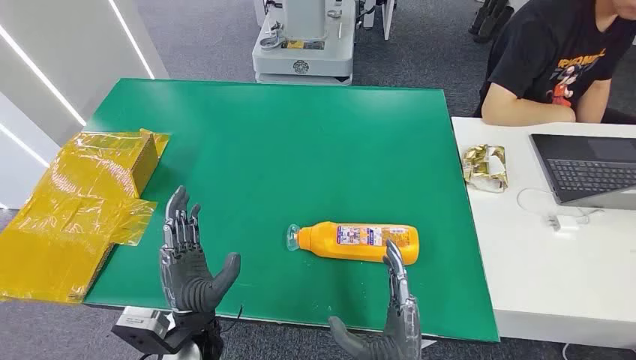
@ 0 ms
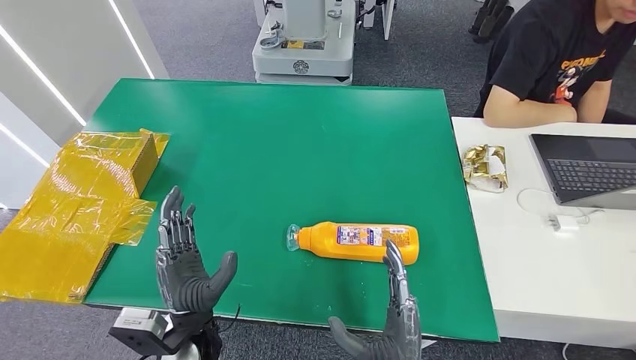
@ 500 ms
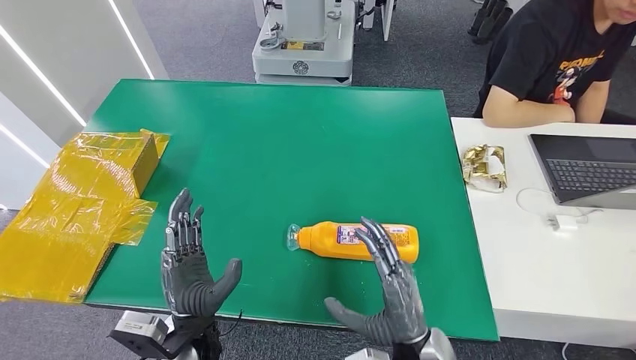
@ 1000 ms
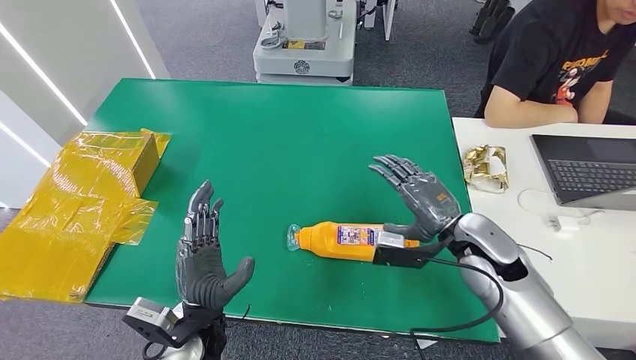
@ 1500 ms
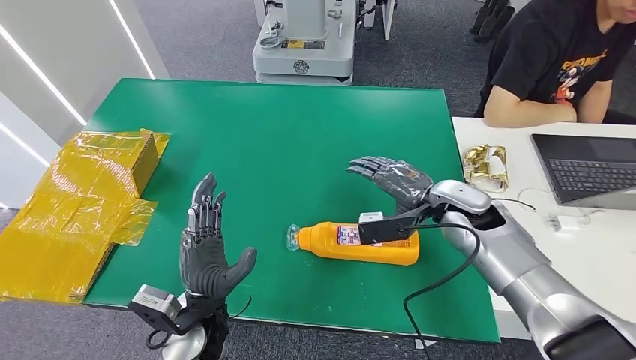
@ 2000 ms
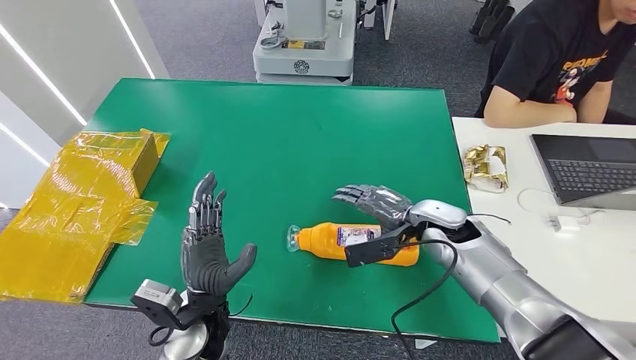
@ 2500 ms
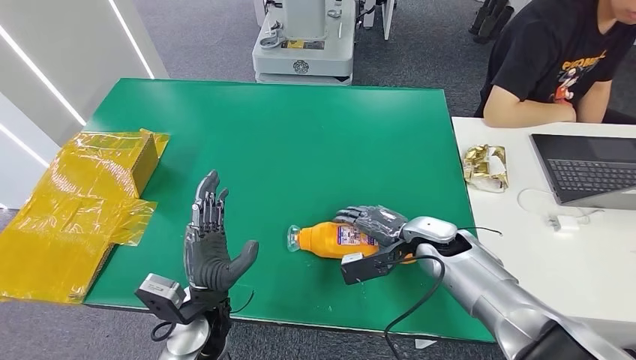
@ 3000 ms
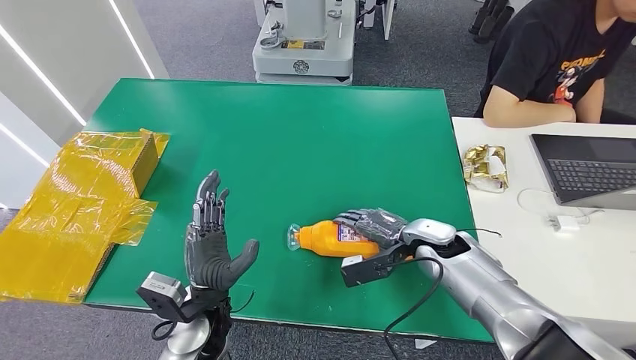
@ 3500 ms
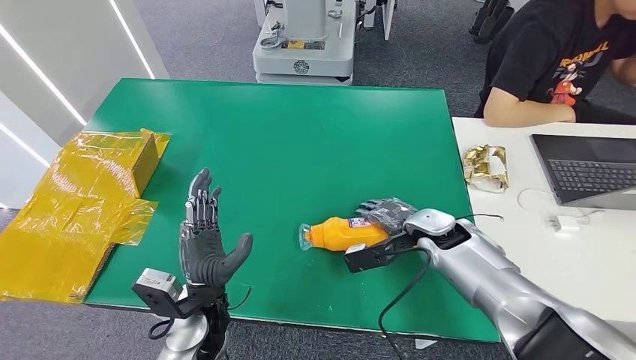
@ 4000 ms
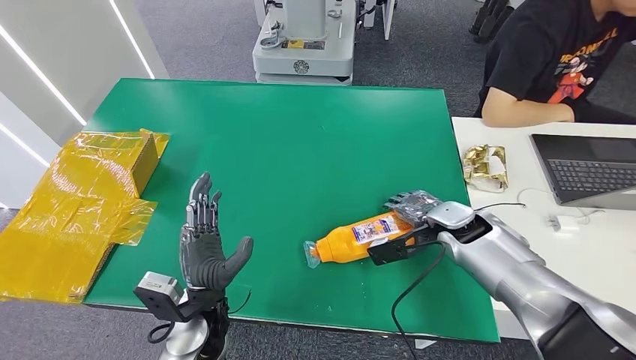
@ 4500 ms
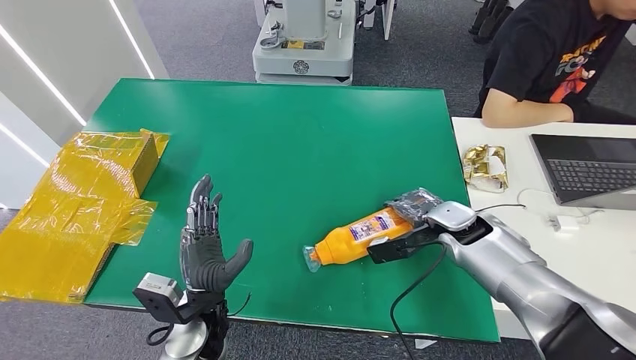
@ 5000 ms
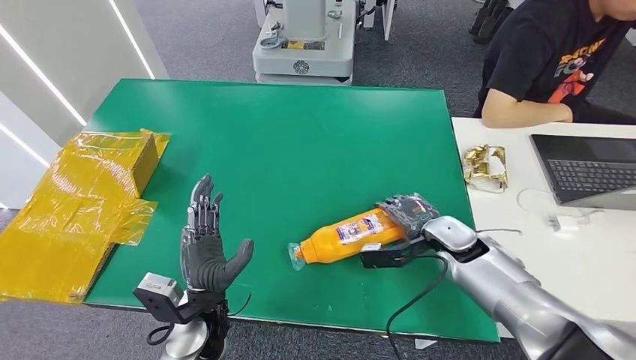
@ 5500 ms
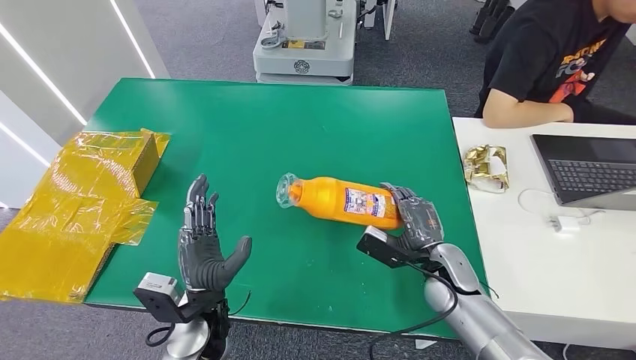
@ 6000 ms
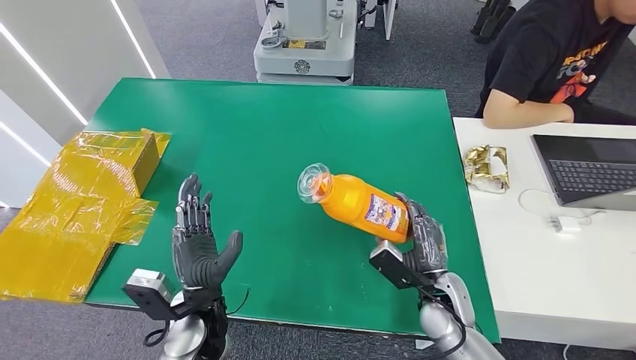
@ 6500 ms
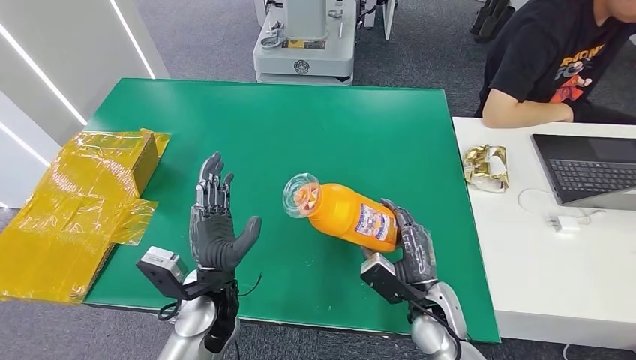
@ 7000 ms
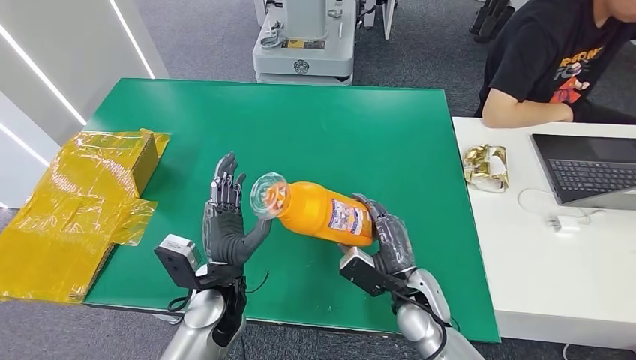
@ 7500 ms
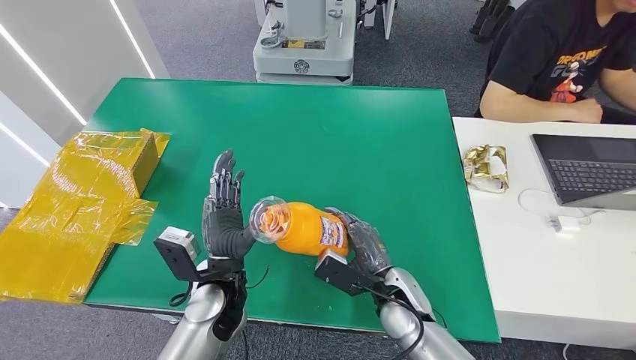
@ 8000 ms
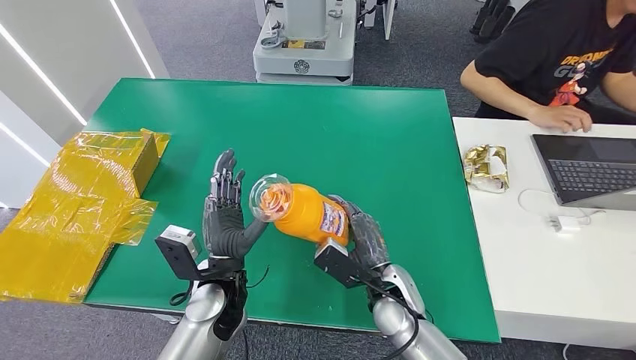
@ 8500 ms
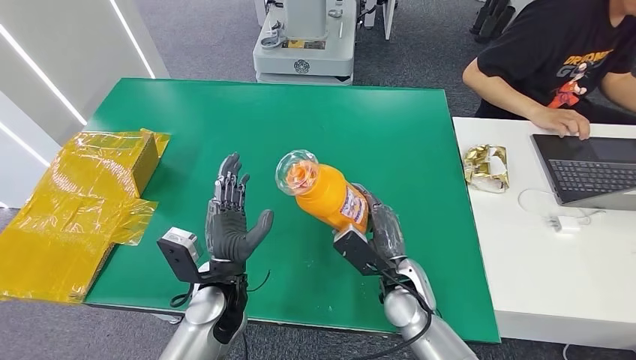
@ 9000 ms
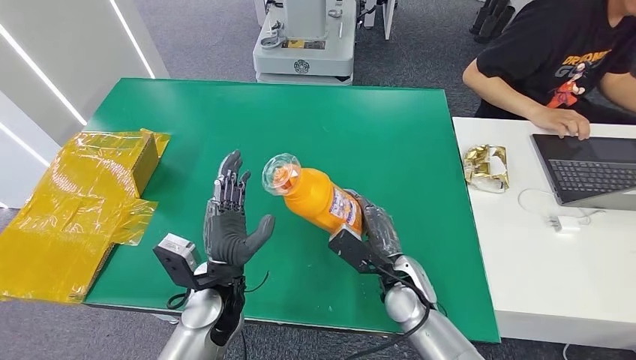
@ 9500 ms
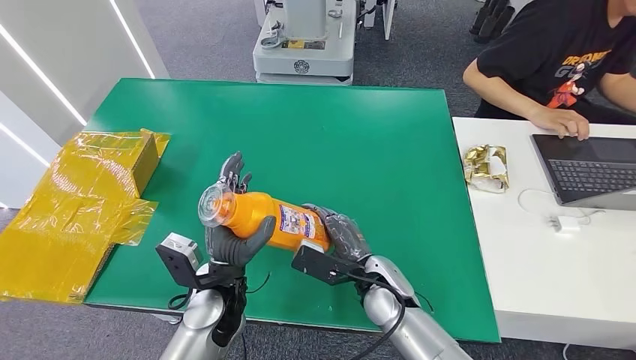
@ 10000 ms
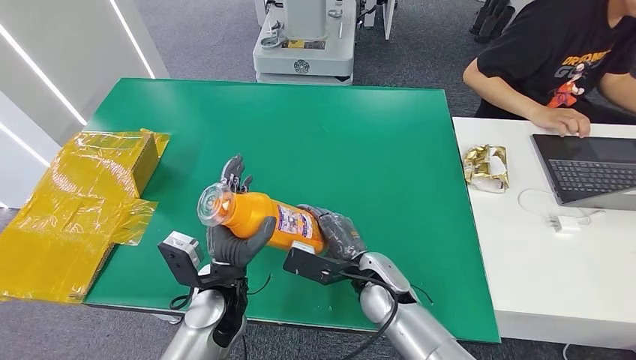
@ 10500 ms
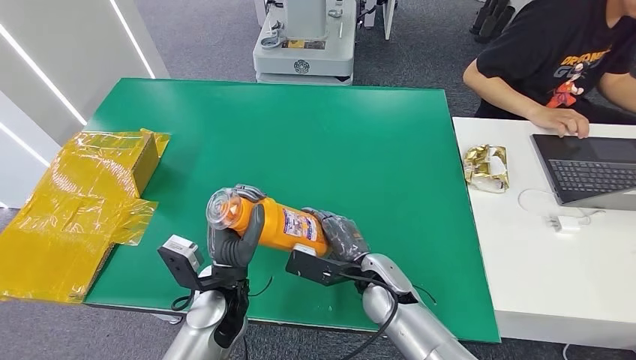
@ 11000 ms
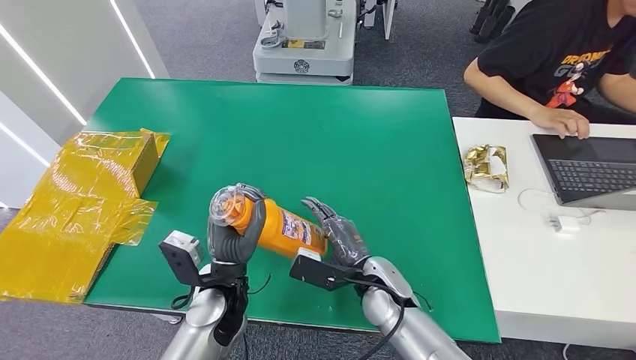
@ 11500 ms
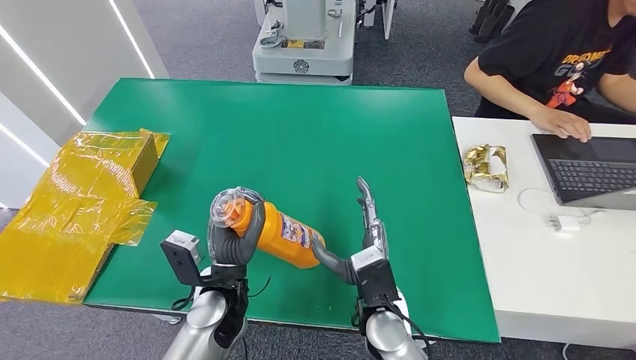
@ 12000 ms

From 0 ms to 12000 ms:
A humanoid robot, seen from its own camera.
Step, from 0 ms to 6500 ms: Pick up the bottle from the table.
From 2000 ms to 4000 ms: The right hand shifts approximately 5 cm downward.
From 4000 ms to 6000 ms: The right hand shifts about 10 cm backward and downward.
From 6000 ms to 8000 ms: The right hand travels to the left by approximately 10 cm.
From 8000 ms to 10000 ms: There are only small adjustments of the hands.
From 10000 ms to 12000 ms: The right hand moves backward, approximately 5 cm.

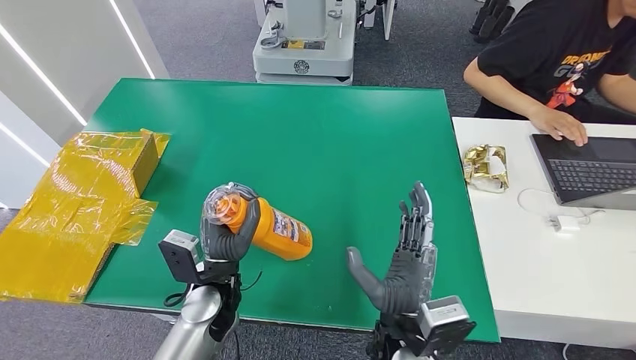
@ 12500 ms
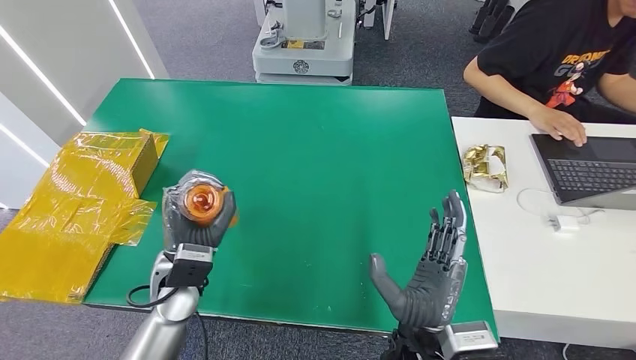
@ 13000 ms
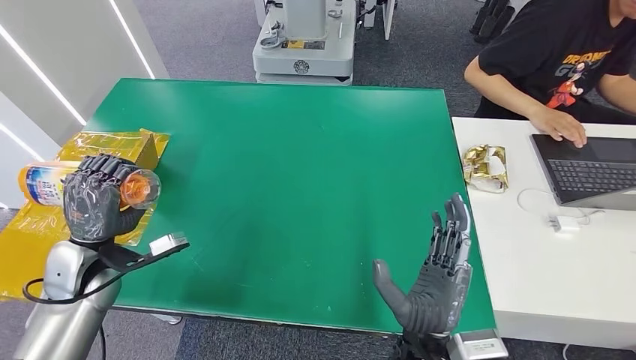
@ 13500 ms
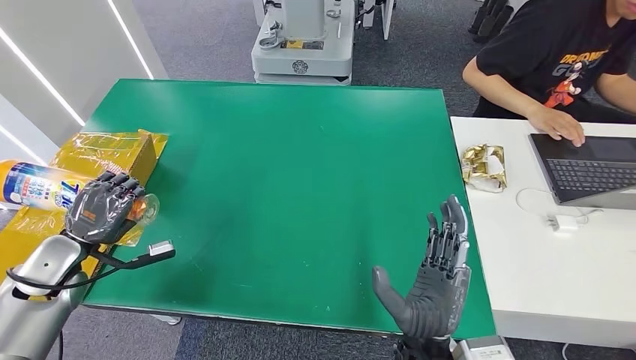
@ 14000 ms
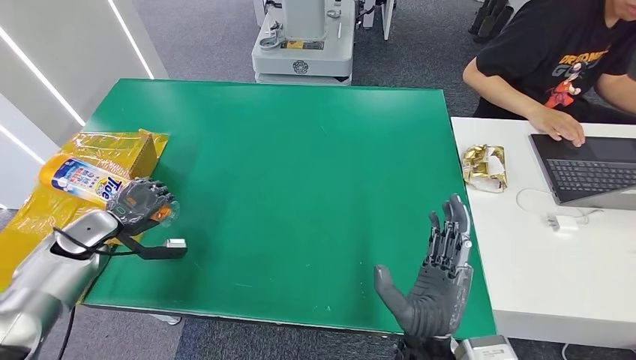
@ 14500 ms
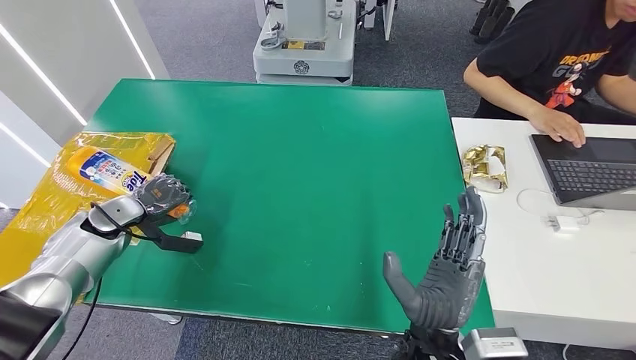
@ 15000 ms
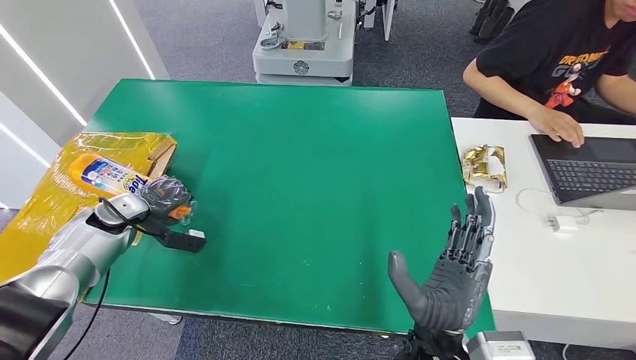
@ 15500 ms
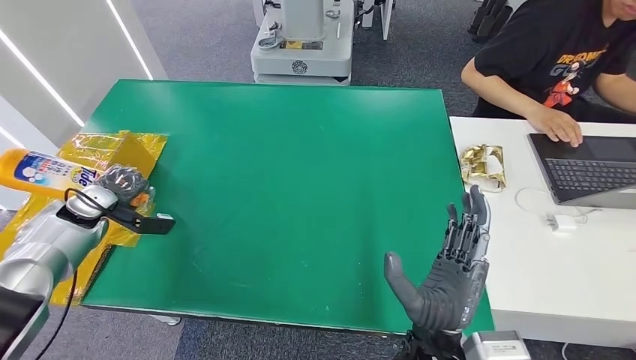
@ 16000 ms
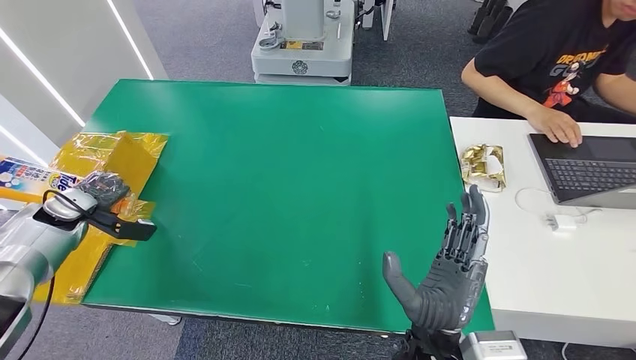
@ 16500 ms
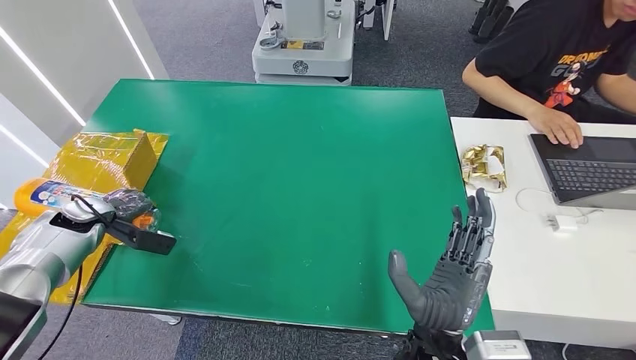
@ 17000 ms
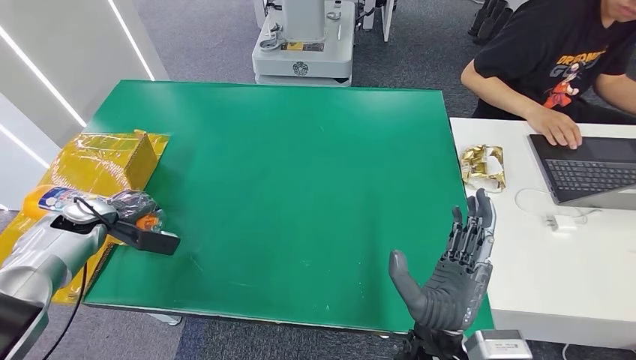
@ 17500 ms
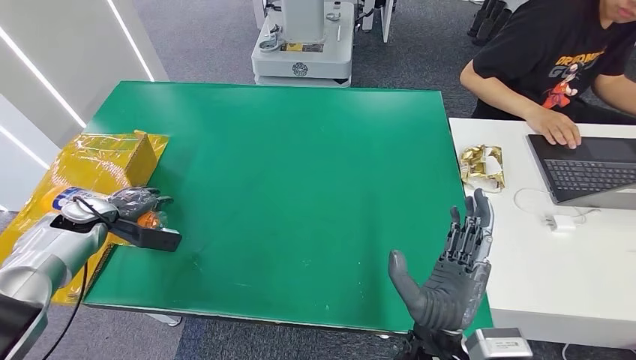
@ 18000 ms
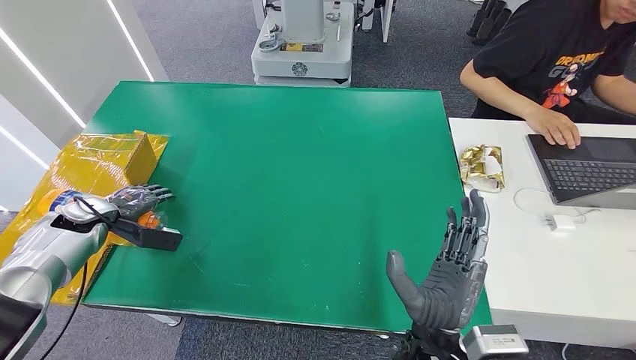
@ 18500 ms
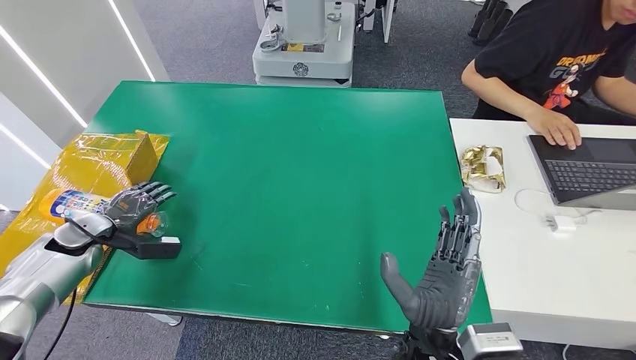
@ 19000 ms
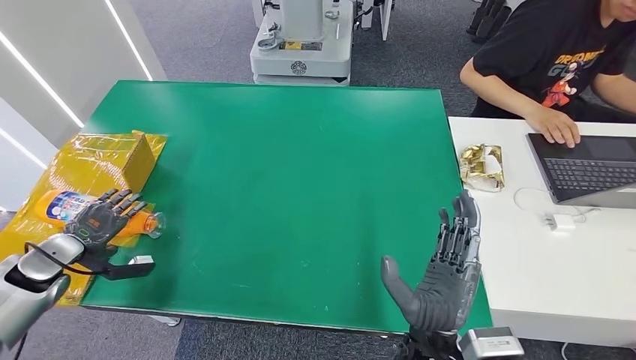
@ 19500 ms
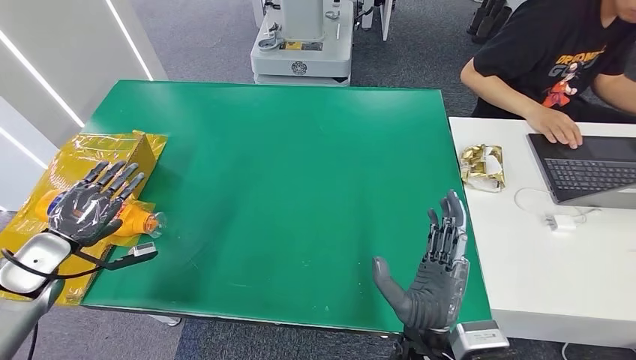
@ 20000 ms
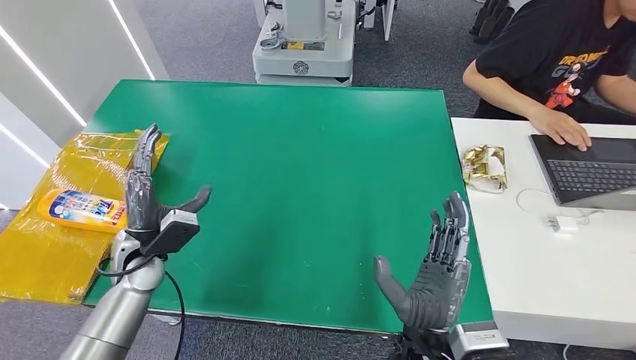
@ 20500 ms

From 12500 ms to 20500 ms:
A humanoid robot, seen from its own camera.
Step, from 12500 ms to 20500 ms: Turn the bottle to the front side.
From 12500 ms to 14500 ms: The left hand heads to the left, covering some 30 cm.
From 14500 ms to 16500 ms: The left hand is displaced to the left by about 5 cm.
From 18500 ms to 20500 ms: The left hand travels to the right by roughly 20 cm.
